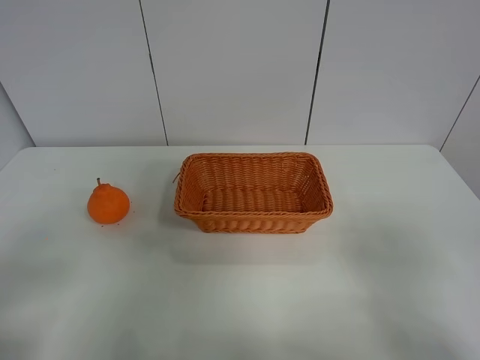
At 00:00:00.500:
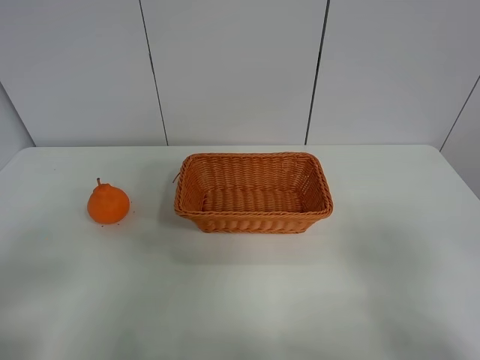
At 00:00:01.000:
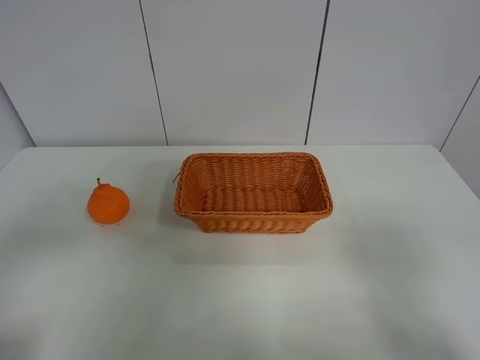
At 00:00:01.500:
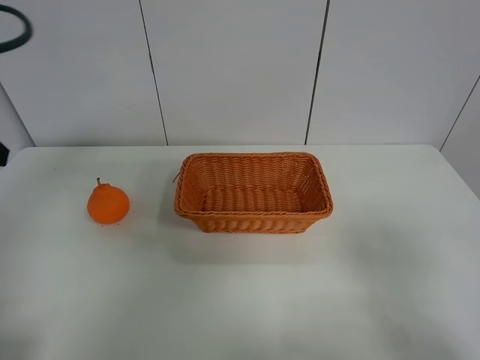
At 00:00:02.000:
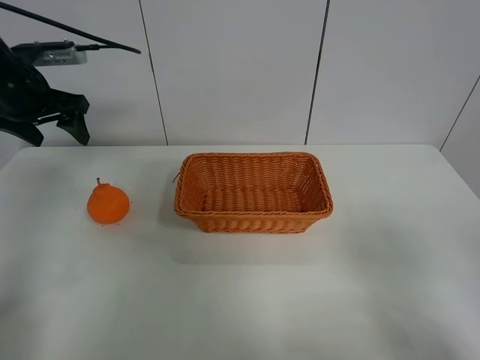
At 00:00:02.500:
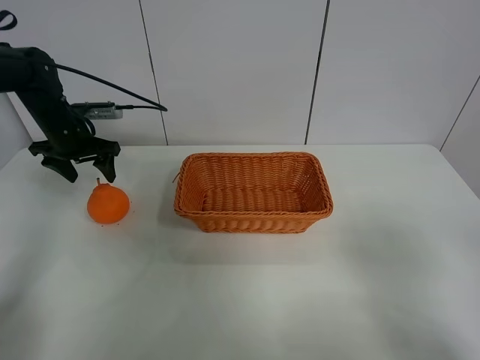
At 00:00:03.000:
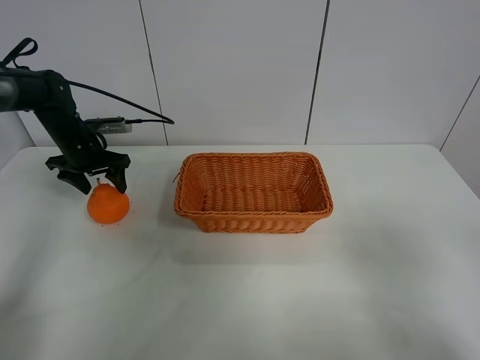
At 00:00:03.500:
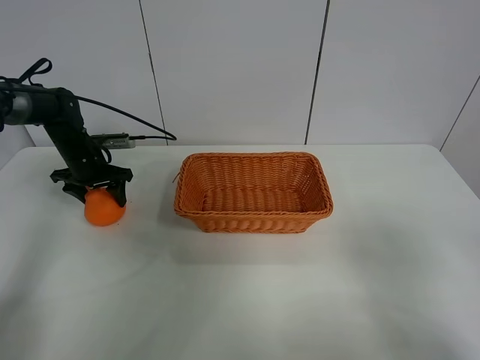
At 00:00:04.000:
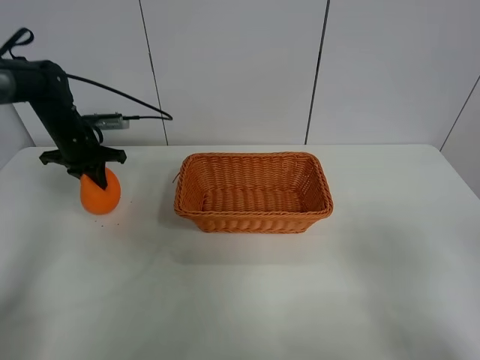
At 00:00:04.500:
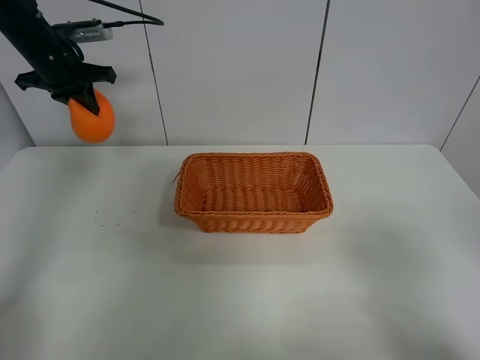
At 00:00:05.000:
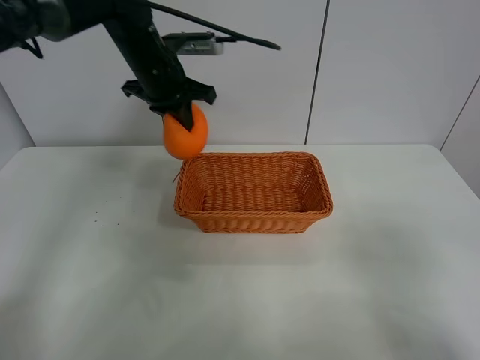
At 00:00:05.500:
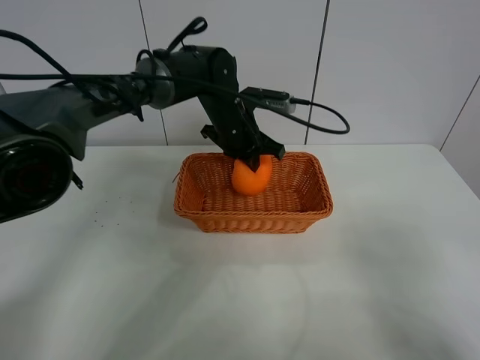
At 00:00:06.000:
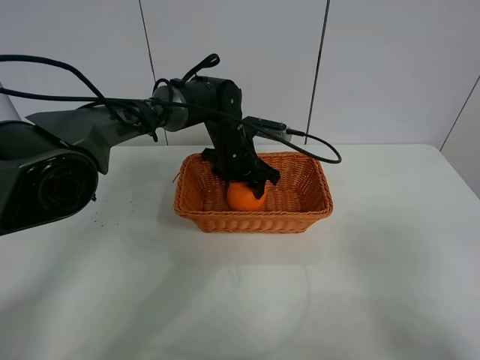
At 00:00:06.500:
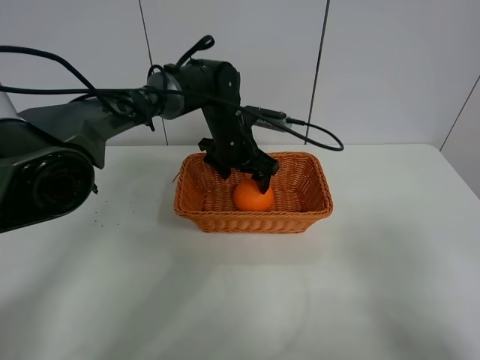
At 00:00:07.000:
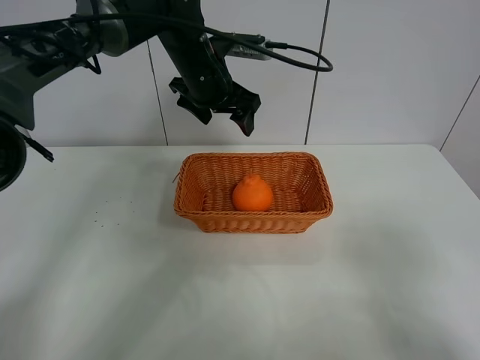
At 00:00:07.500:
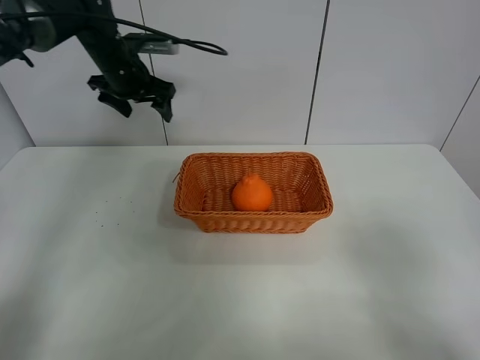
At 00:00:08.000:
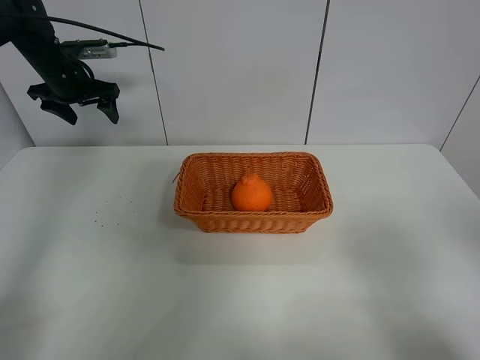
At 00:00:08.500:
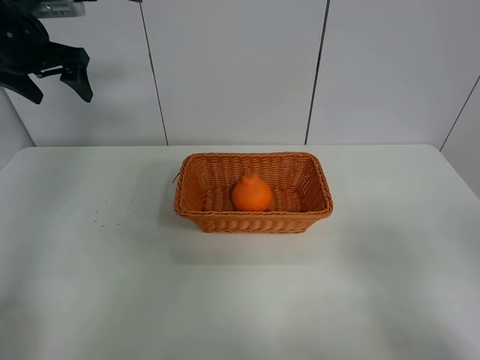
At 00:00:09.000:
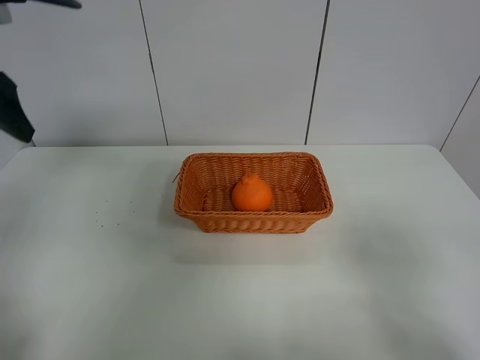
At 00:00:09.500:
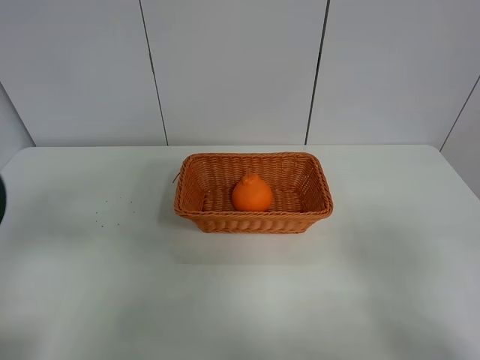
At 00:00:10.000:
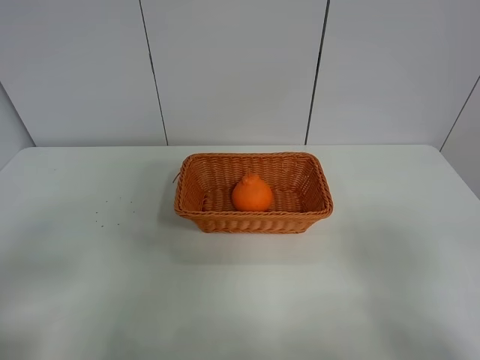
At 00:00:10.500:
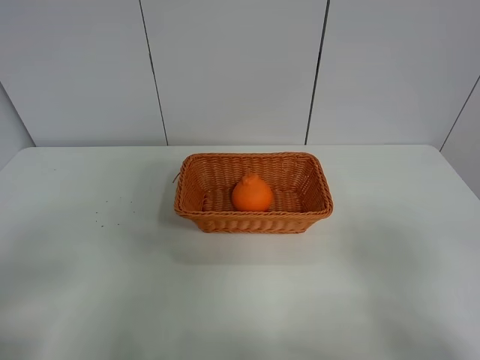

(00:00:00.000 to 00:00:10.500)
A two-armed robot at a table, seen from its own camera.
Task of the whole recording: left gripper grabs oranges and puts them in the basket.
Step, 00:00:00.000 - 00:00:03.500: Grasp the orange with left gripper.
Step, 00:00:04.000 - 00:00:07.500: Place the orange in the basket with left gripper.
00:00:00.000 - 00:00:02.000: The left gripper shifts roughly 40 cm forward.
00:00:02.000 - 00:00:04.000: The left gripper moves downward and forward, some 15 cm, and closes.
00:00:04.000 - 00:00:06.500: The left gripper is displaced to the right by some 30 cm, and opens its fingers.
00:00:06.500 - 00:00:08.500: The left gripper is displaced to the left and upward by some 35 cm.
00:00:08.500 - 00:00:10.500: The left gripper is displaced backward by approximately 40 cm.
